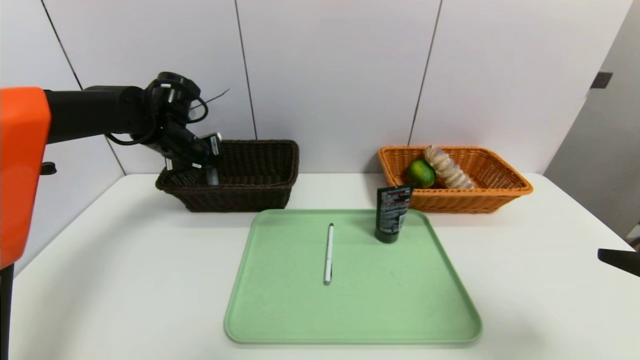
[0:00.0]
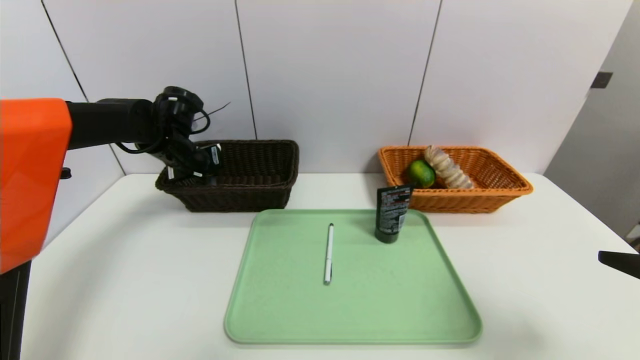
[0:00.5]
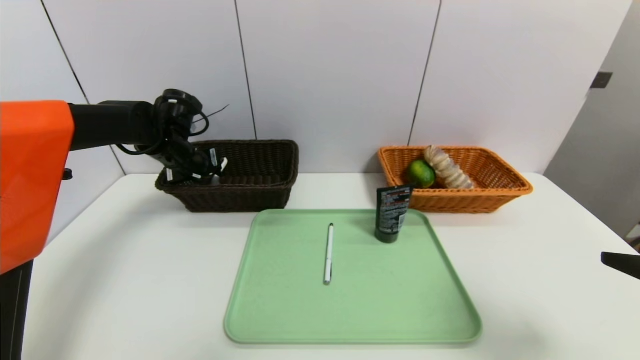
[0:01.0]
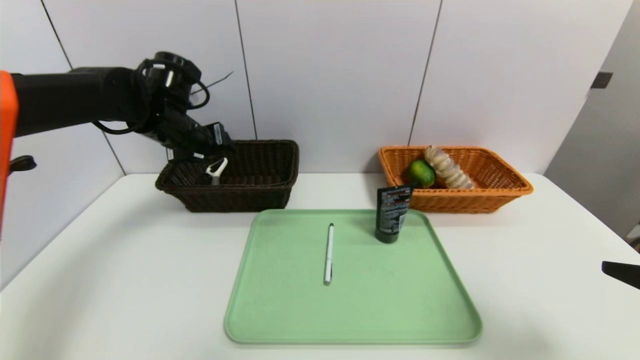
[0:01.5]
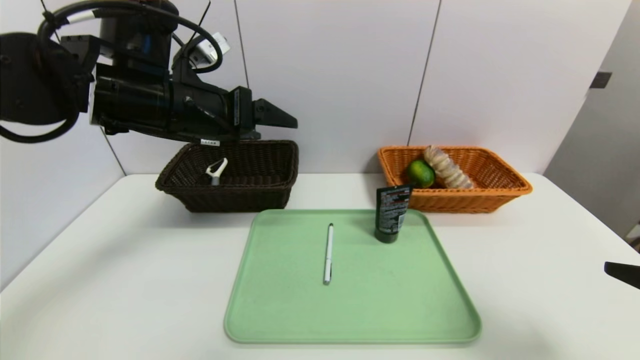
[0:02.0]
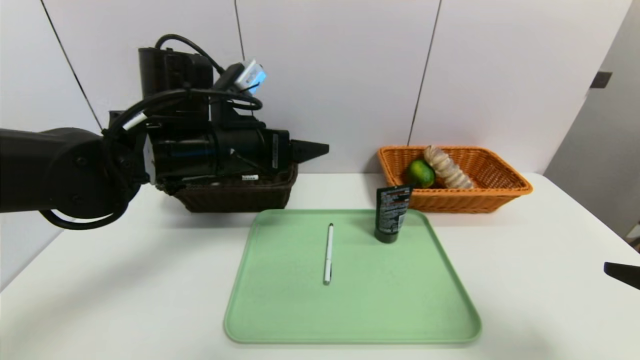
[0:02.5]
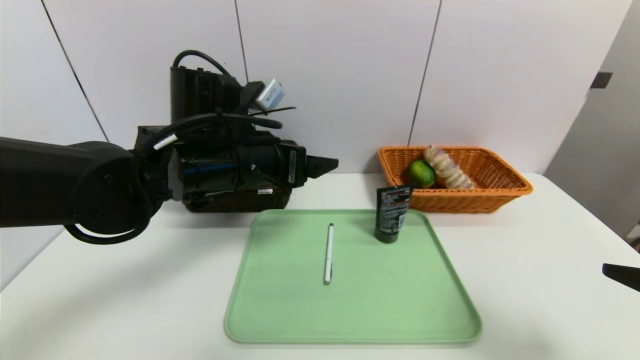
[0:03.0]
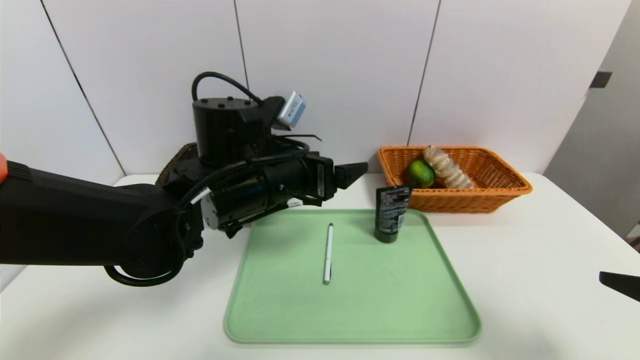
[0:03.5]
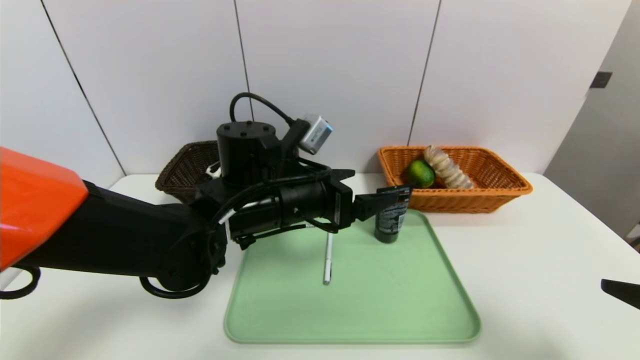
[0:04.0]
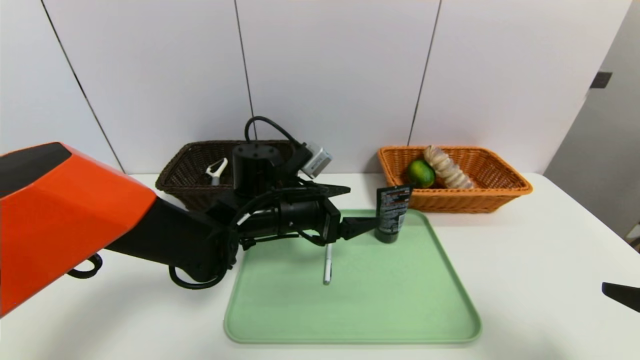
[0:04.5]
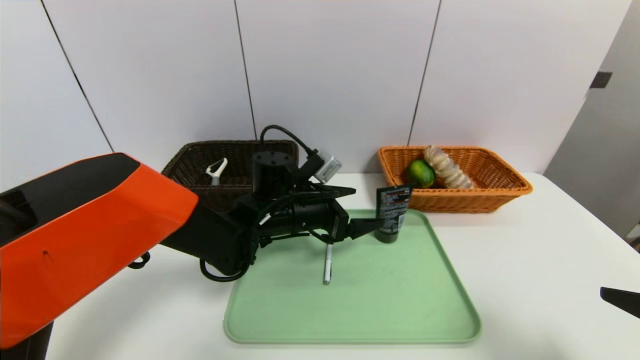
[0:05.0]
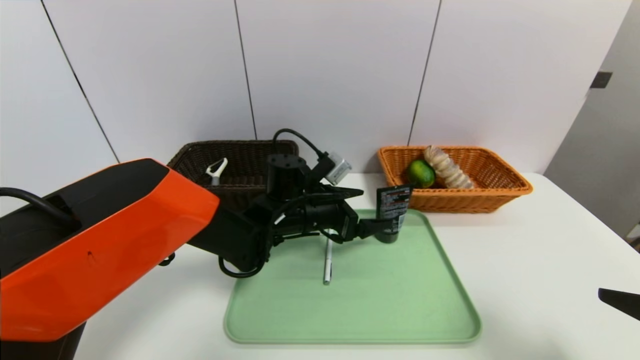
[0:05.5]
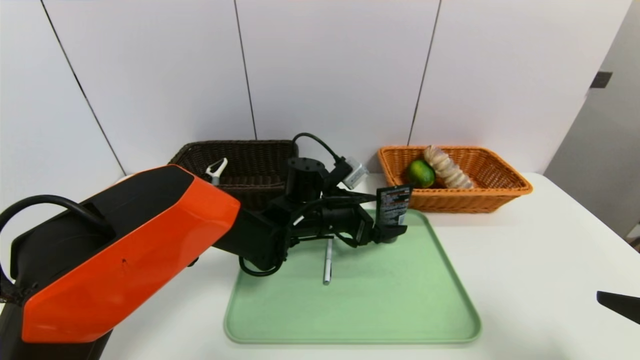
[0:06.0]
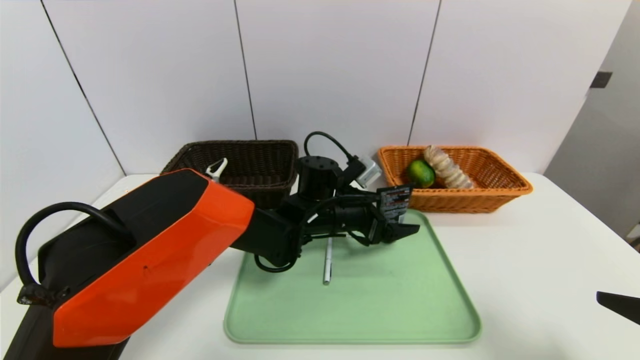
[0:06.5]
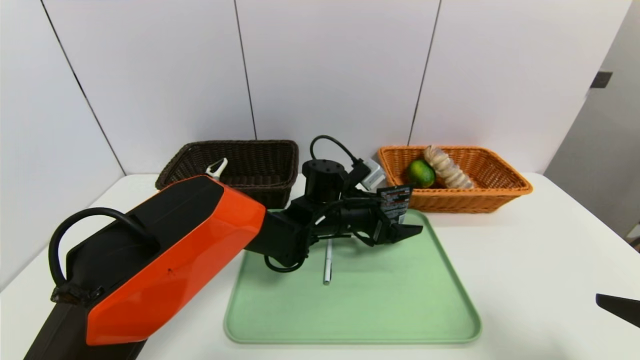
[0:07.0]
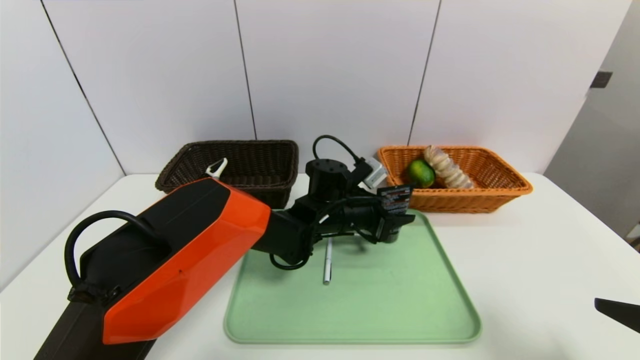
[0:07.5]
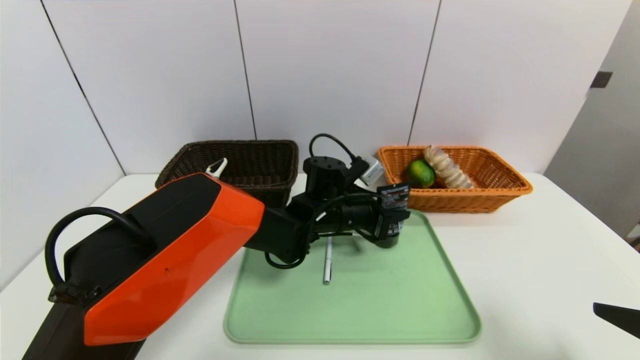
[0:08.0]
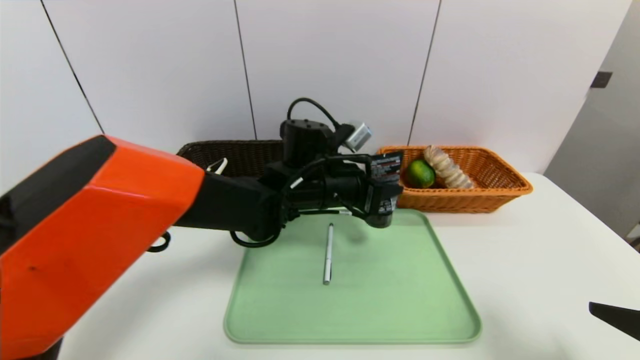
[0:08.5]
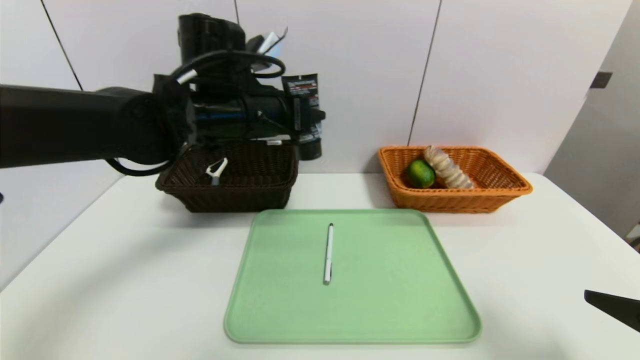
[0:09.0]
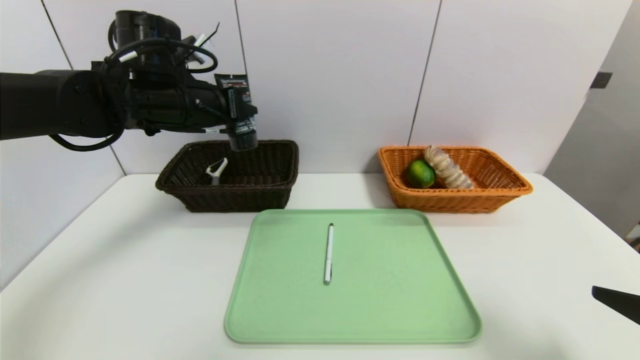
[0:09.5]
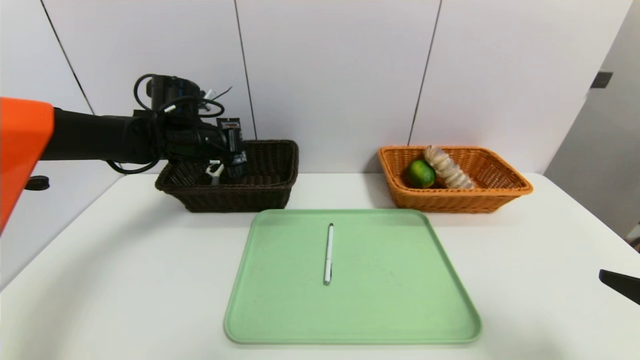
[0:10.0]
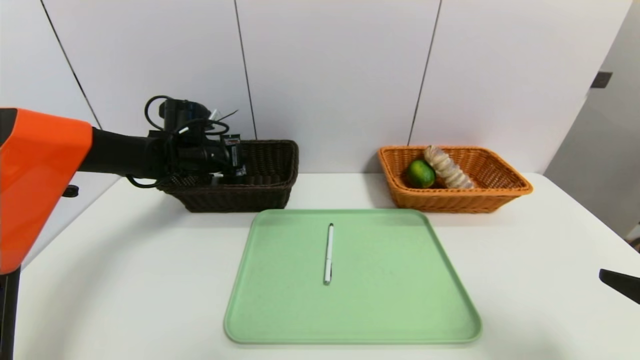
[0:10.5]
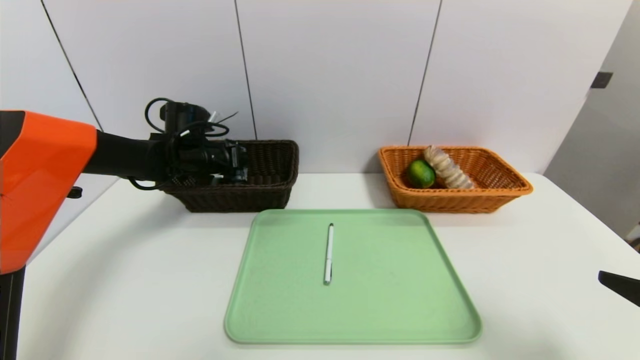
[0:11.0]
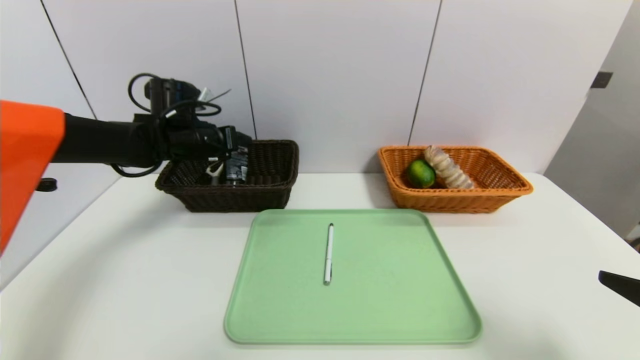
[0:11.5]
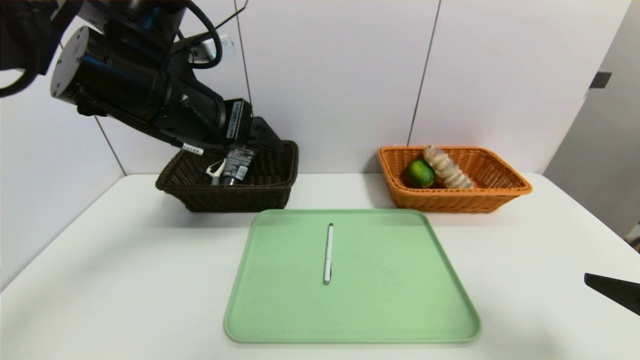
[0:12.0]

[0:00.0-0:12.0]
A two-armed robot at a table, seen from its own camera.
Task of the whole recording: place the food in the right basket with the right gripper, and place the non food items in the left basket with the left gripper.
Step, 0:01.5 to 0:11.5: Grasp the soft cleanser and put it in the left basket.
0:00.0 to 0:02.0: The left gripper is displaced backward, upward and to the right by roughly 15 cm, and opens up.
0:02.0 to 0:04.0: The left gripper shifts some 15 cm downward and to the right.
0:04.0 to 0:06.0: The left gripper travels downward, forward and to the right by roughly 10 cm.
0:06.0 to 0:08.0: The left gripper closes up.
0:08.0 to 0:10.0: The left gripper travels to the left and upward by roughly 25 cm.
0:10.0 to 0:12.0: The left gripper is displaced backward, upward and to the right by approximately 20 cm, and opens.

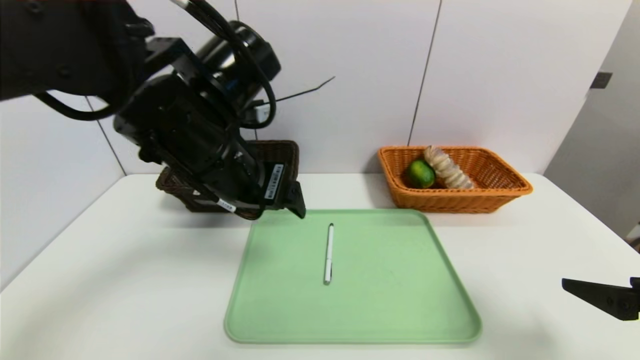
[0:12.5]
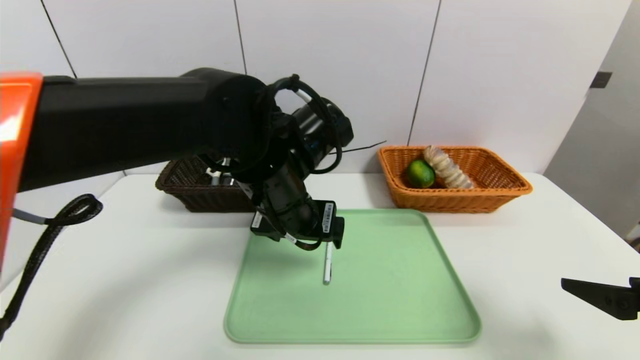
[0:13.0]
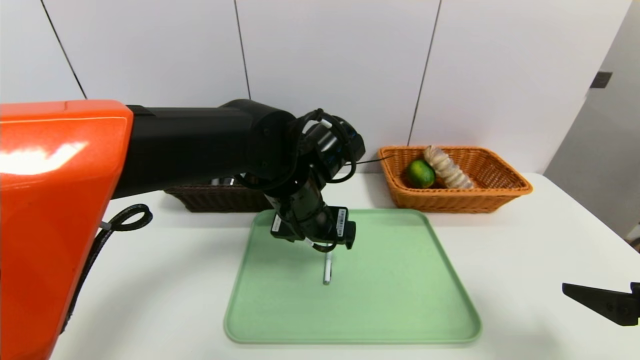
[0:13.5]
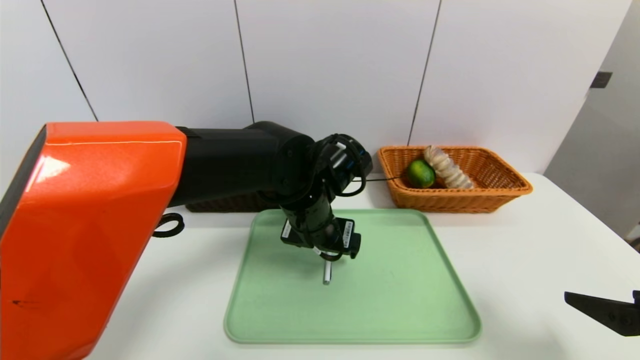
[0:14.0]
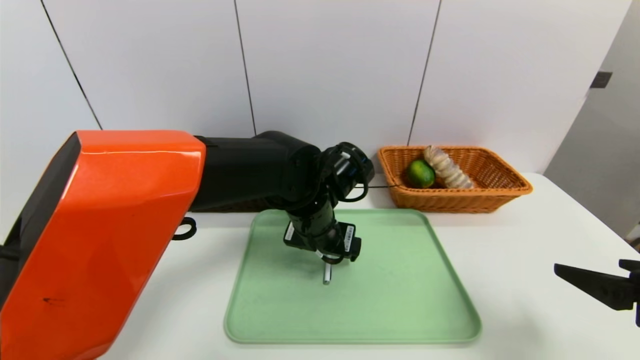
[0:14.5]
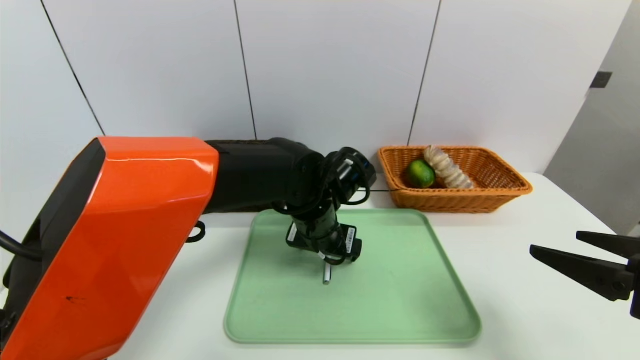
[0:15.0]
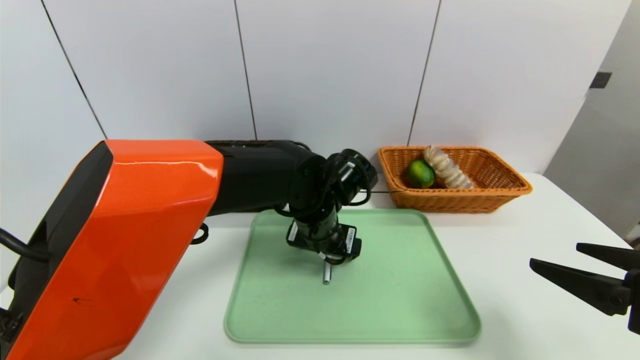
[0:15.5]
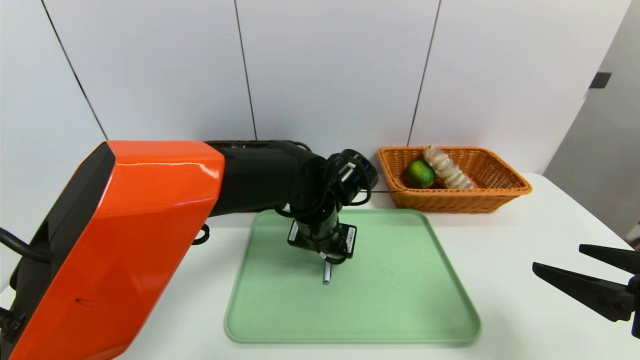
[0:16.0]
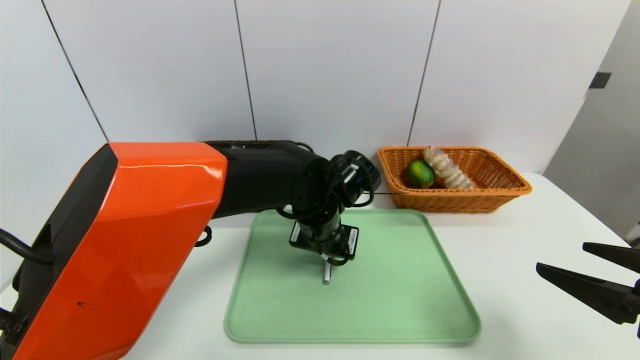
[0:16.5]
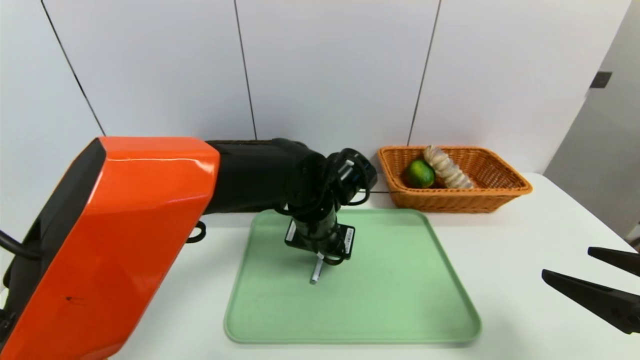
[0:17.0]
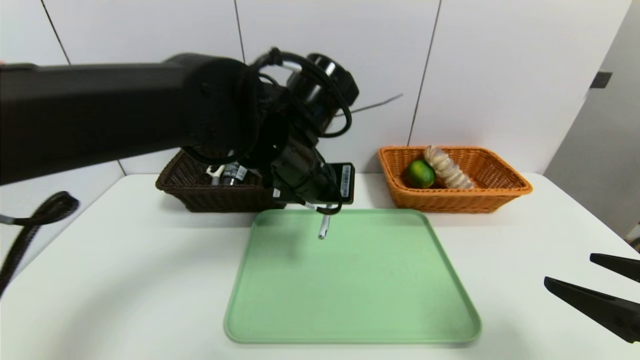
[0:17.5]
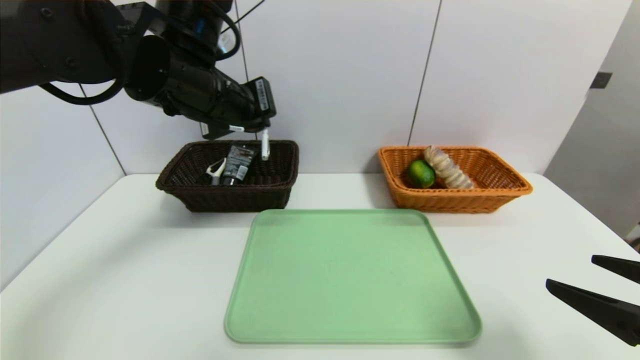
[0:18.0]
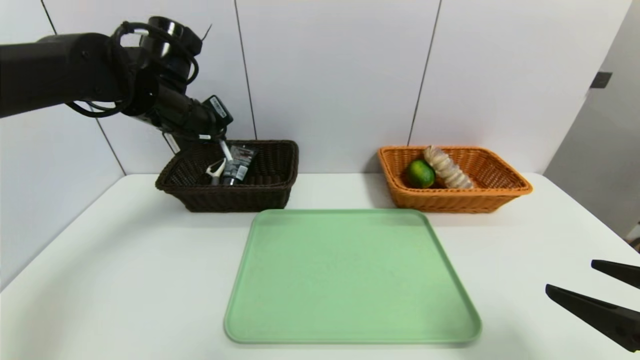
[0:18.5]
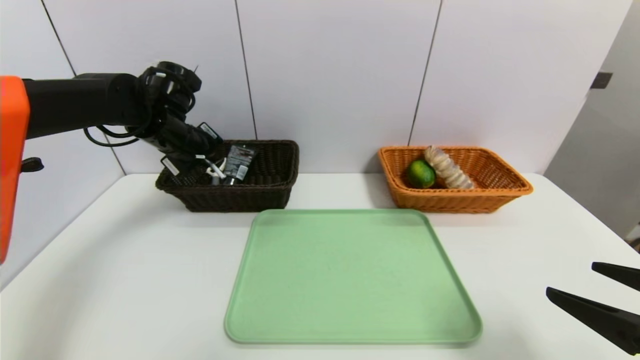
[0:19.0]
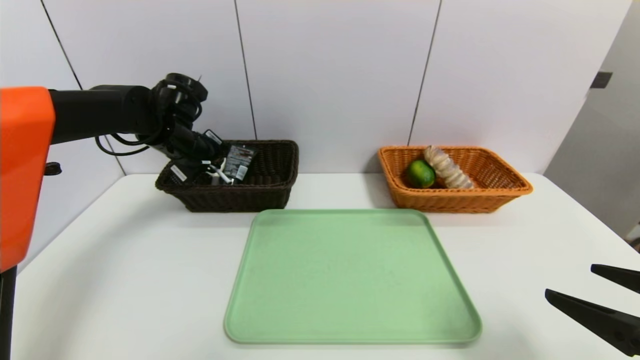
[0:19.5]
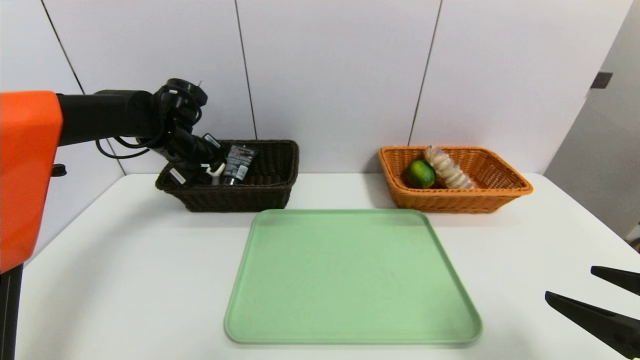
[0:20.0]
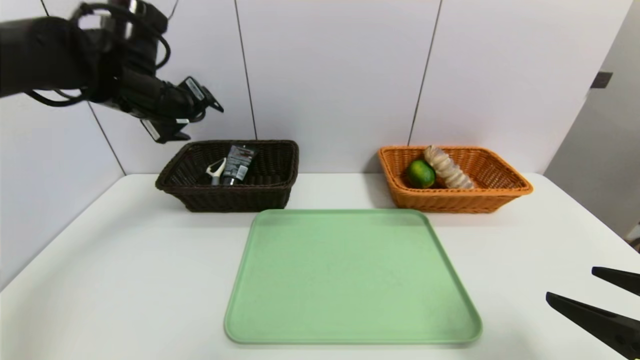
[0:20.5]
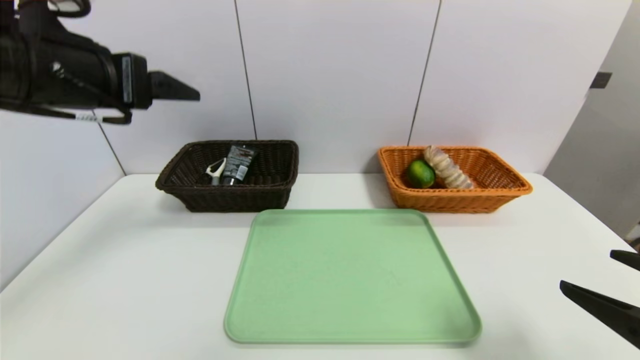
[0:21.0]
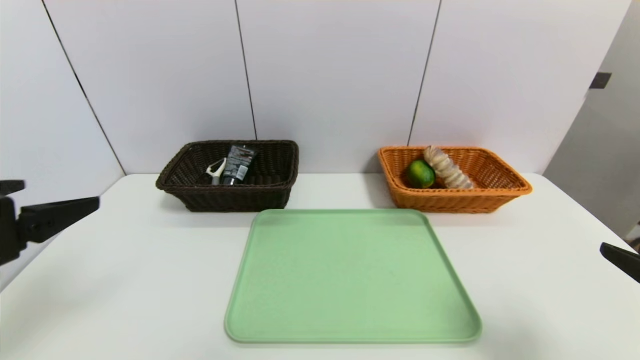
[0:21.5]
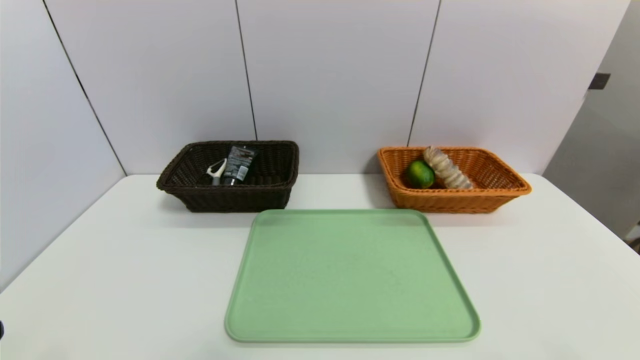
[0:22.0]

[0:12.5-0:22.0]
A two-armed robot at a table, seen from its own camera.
Task of the whole recording: place the food in the right basket with the right gripper, and place the non food items in the left basket with the left gripper.
Step, 0:12.5 to 0:20.0: Grasp the ballpoint pen and put it in the left basket.
0:12.5 to 0:14.5: The left gripper shifts about 15 cm downward, to the right and forward.
0:14.5 to 0:16.5: The left gripper closes.
0:16.5 to 0:18.0: The left gripper moves upward and to the left, some 25 cm.
0:18.0 to 0:20.0: The left gripper travels forward, downward and to the left by about 20 cm, and opens its fingers.
0:20.0 to 0:22.0: The right gripper shifts some 10 cm backward. The left gripper moves backward, roughly 40 cm, and opens its fingers.
